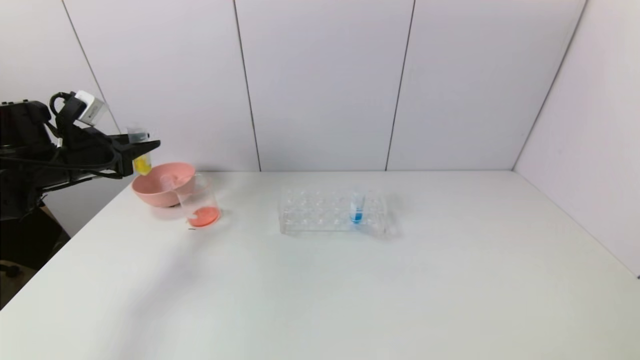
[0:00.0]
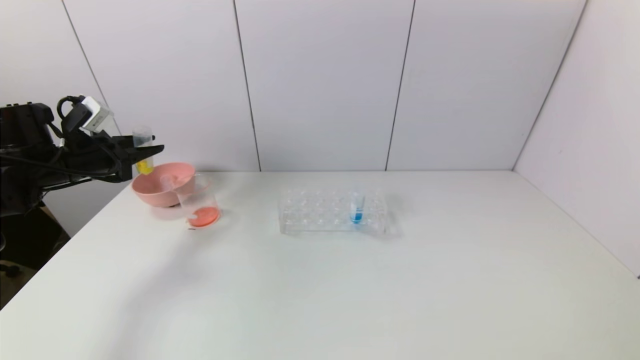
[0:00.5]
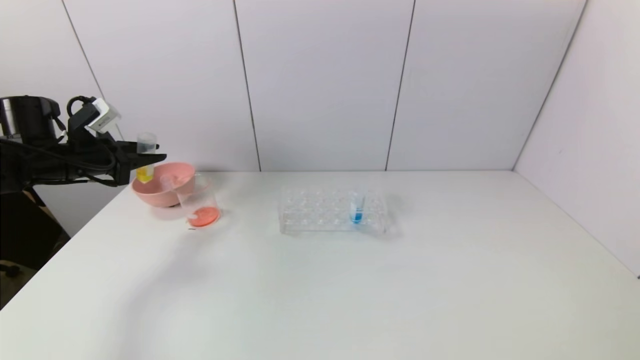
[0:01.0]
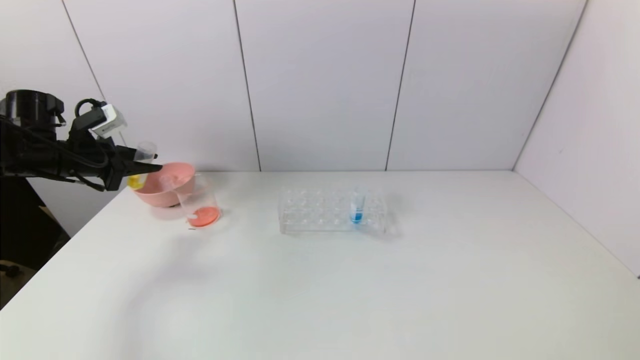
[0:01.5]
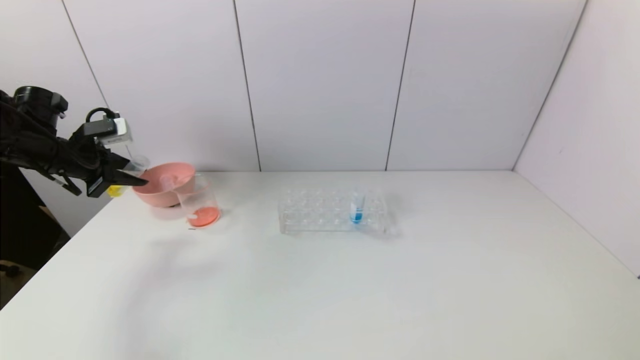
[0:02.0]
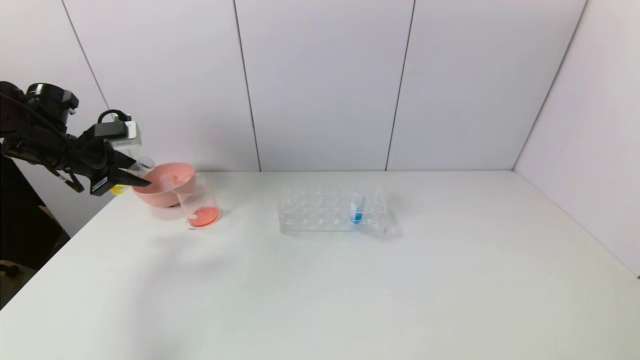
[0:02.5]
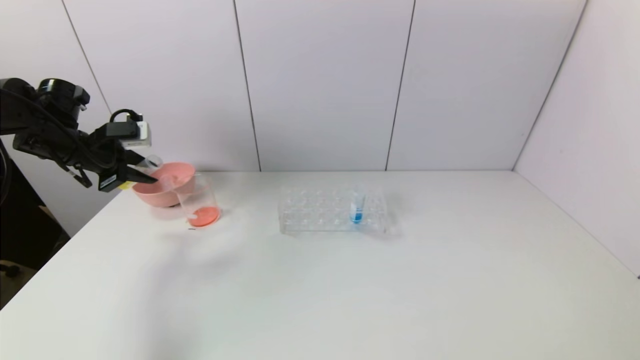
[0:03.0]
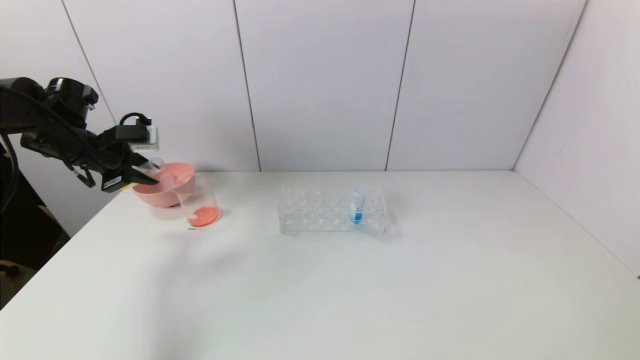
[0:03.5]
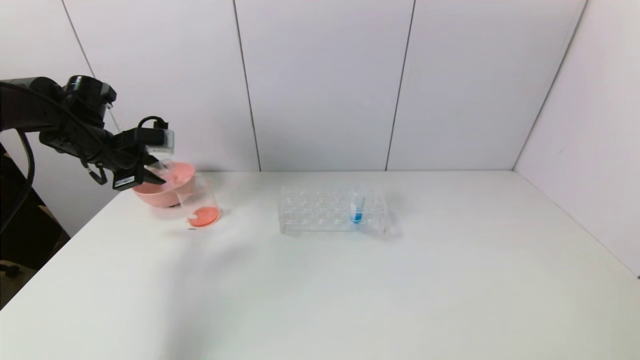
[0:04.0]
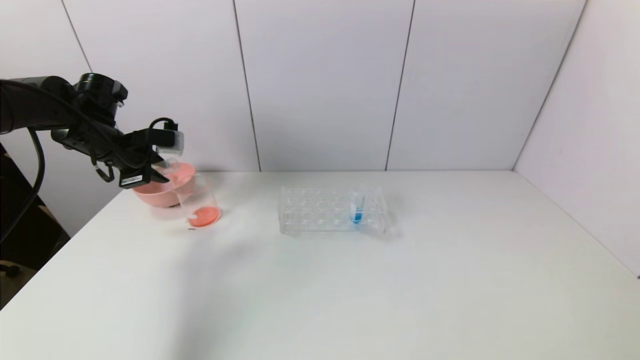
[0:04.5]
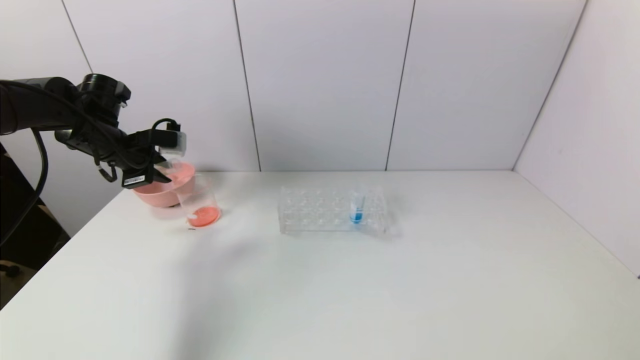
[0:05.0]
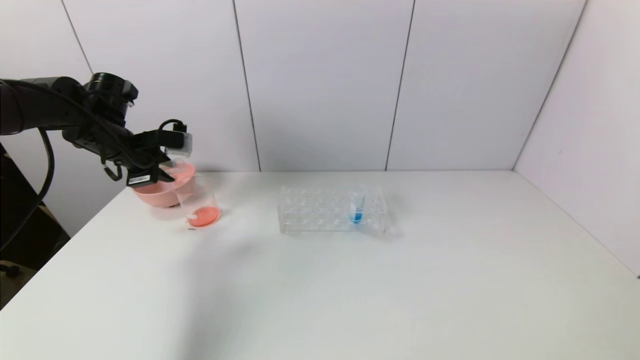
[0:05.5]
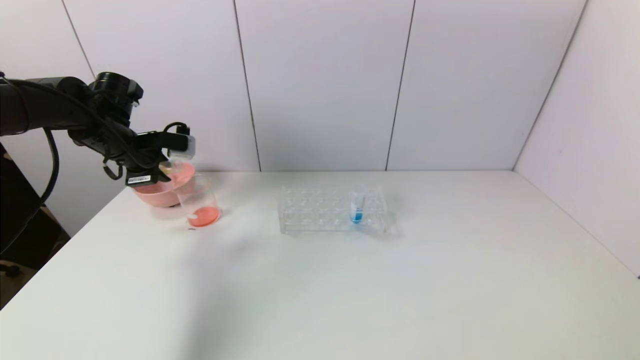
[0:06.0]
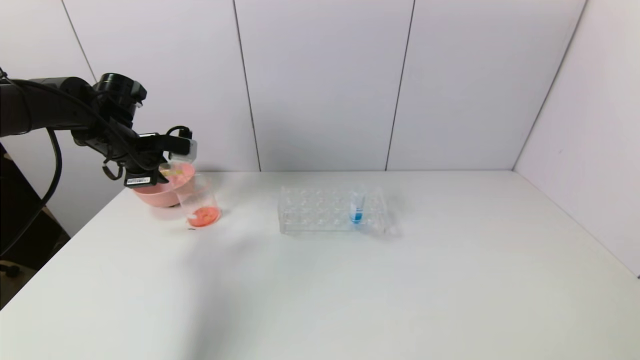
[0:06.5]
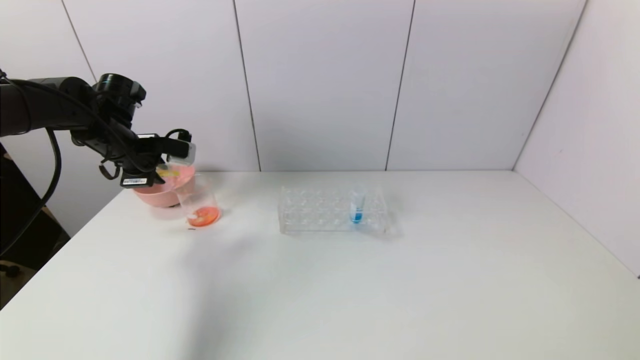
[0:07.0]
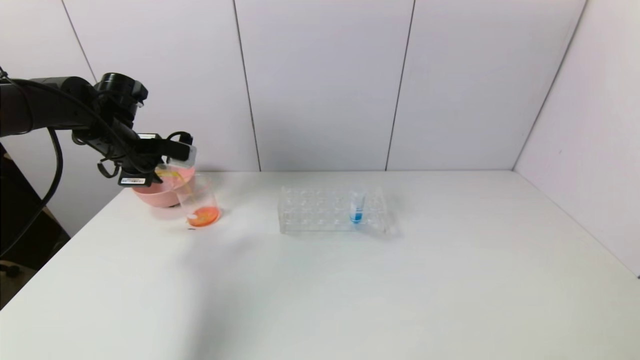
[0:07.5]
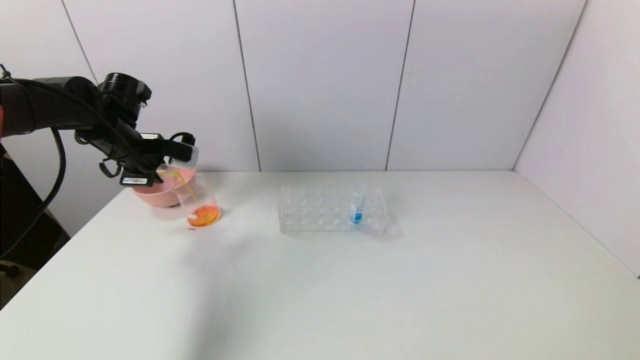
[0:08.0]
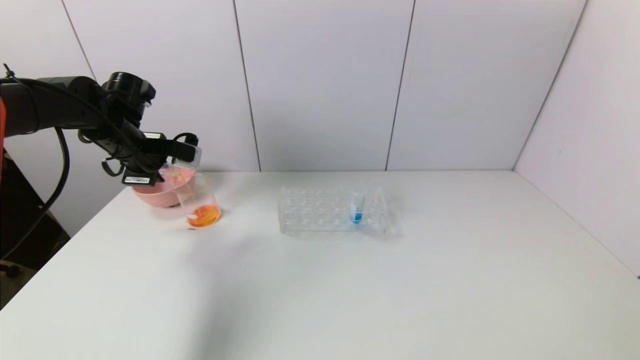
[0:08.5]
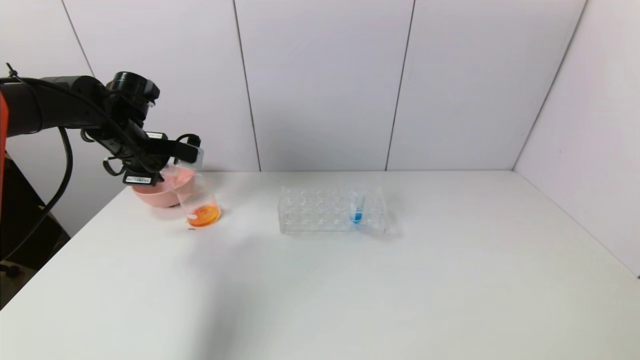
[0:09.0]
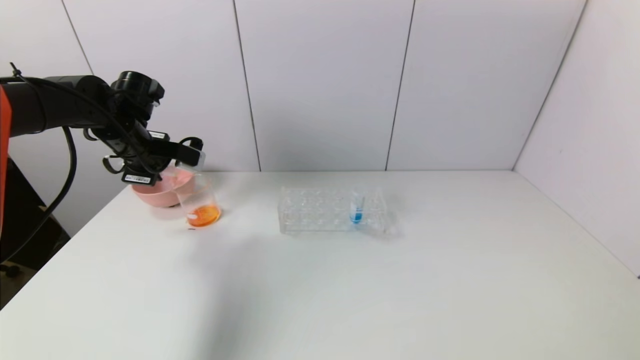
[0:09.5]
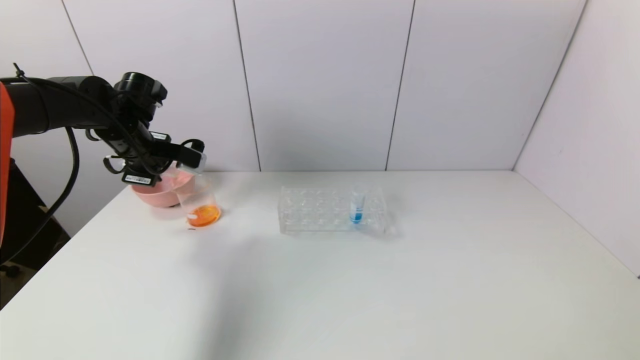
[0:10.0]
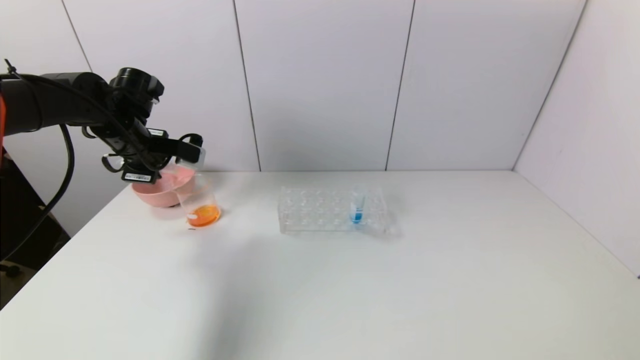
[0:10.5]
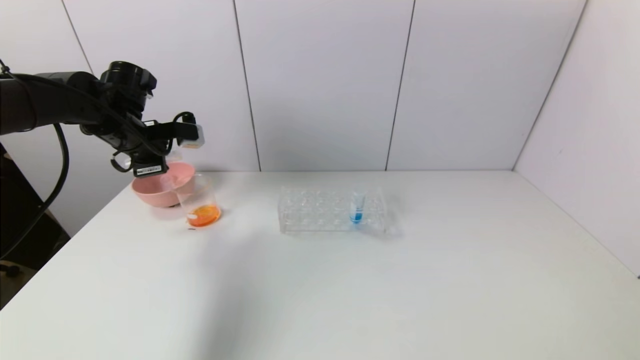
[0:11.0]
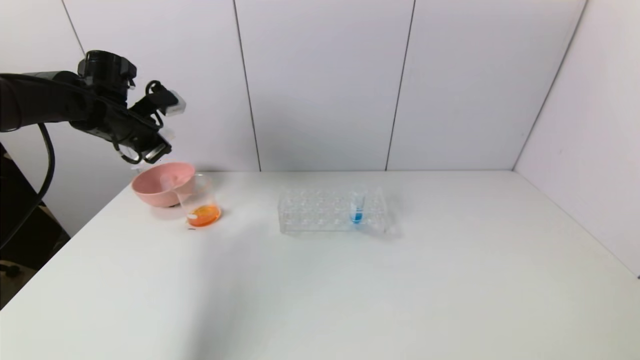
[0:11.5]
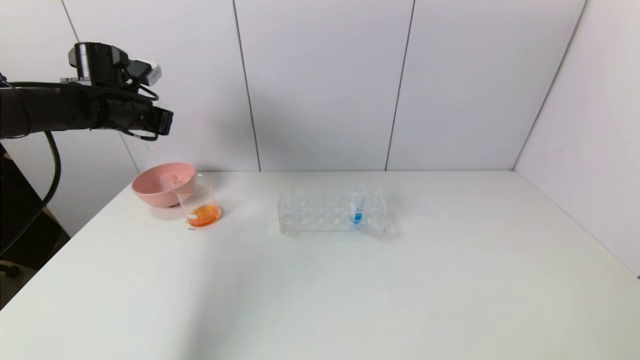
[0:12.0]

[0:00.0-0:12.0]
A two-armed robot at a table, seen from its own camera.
Task of the whole recording: pick up the test tube with yellow pigment and the test tube with red pigment by grippers and pour them into the beaker.
Step, 0:00.0 to 0:10.0: Pour the yellow reagent into the graduated cylinder with the left gripper.
0:02.0 to 0:04.0: The left gripper heads to the right, covering approximately 5 cm.
0:04.0 to 0:06.0: The grippers make only small movements.
0:06.0 to 0:08.0: There are only small adjustments of the grippers.
0:08.0 to 0:10.0: The grippers move only a little.
0:10.0 to 0:12.0: The left gripper moves roughly 5 cm.

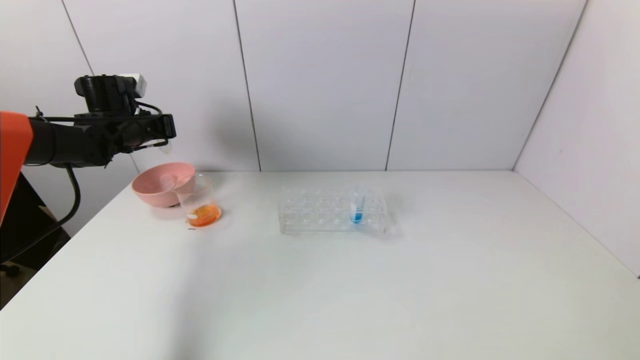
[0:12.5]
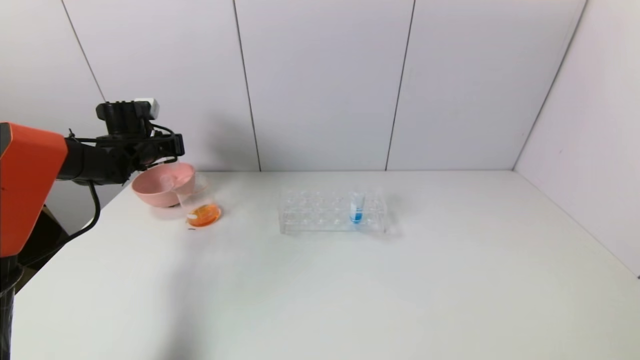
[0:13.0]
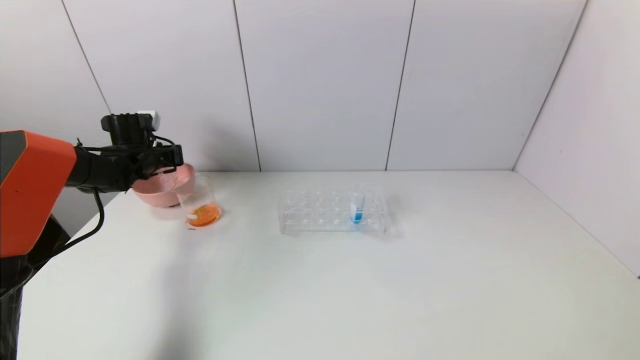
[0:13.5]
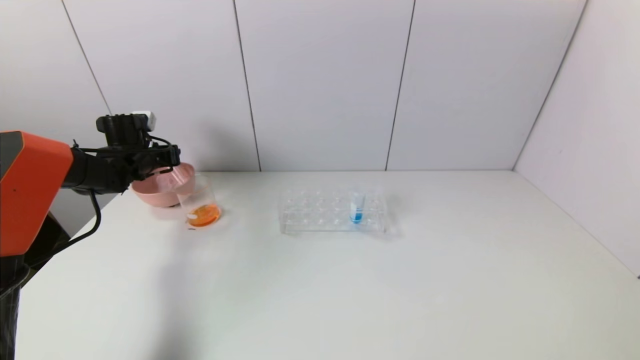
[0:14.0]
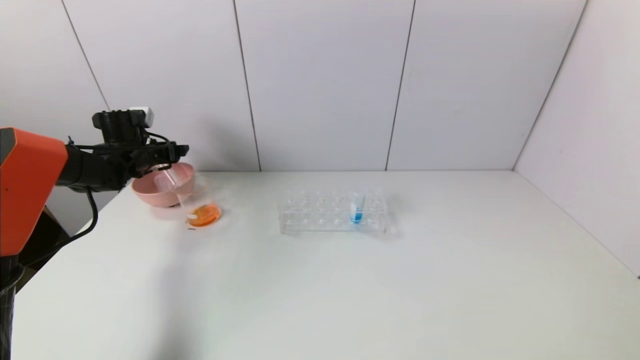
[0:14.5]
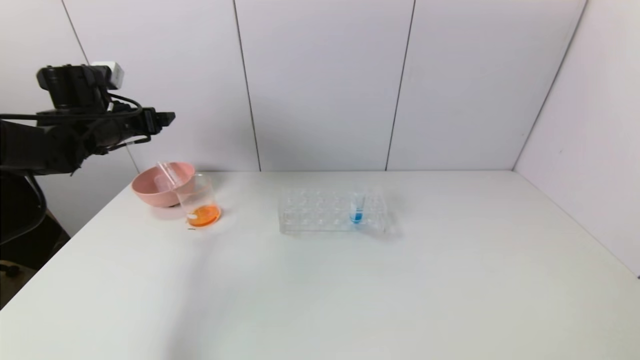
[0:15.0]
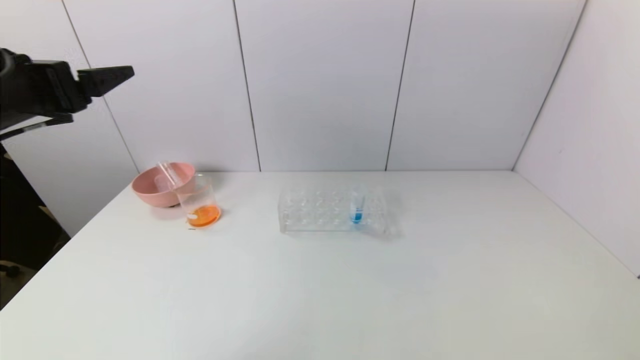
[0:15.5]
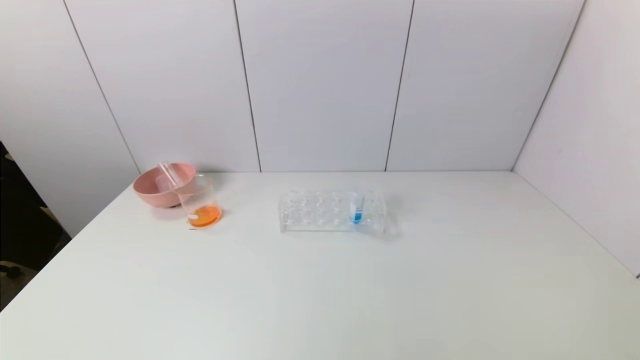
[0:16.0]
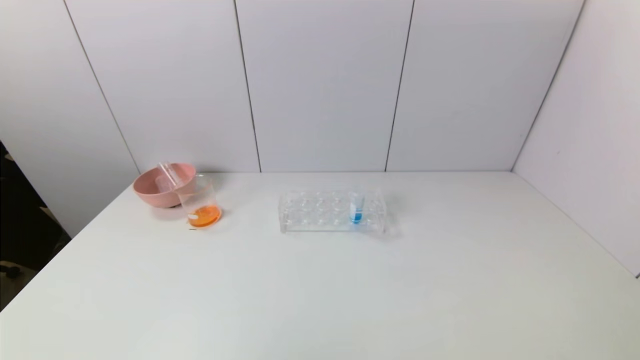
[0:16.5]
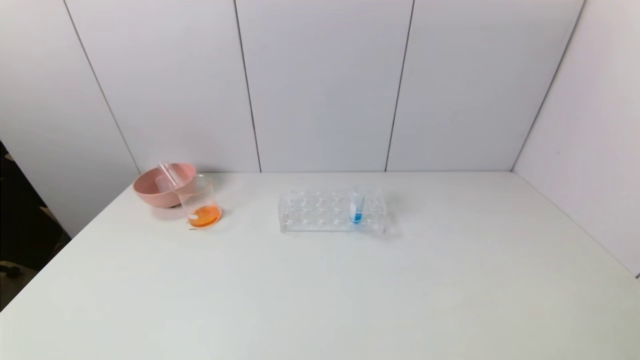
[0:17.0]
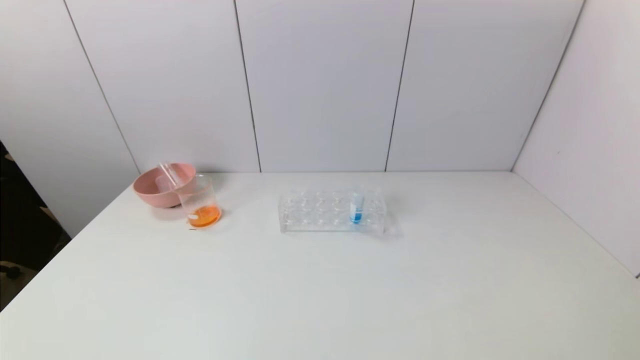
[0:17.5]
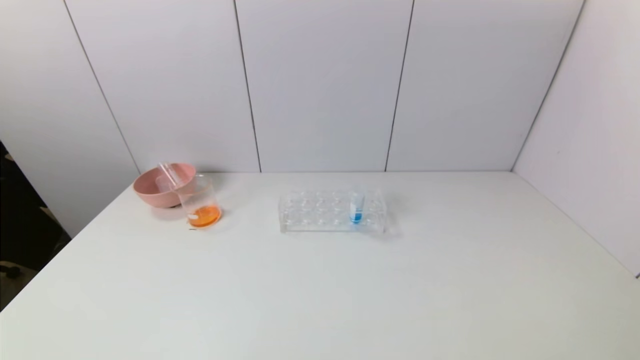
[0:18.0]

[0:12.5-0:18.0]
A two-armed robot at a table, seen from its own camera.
Task of the whole recording: pick up the test tube with yellow pigment and the test tube with red pigment by grippers and pour them into the beaker.
0:12.5 to 0:14.5: The left gripper shifts approximately 5 cm downward, and opens up.
0:14.5 to 0:16.0: The left gripper goes some 50 cm backward.
